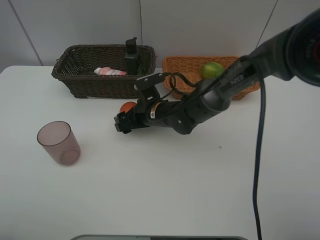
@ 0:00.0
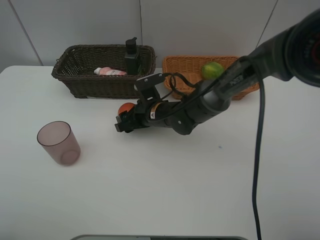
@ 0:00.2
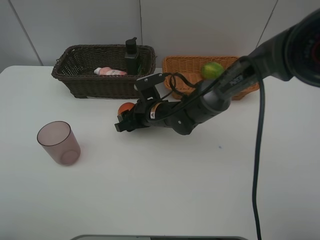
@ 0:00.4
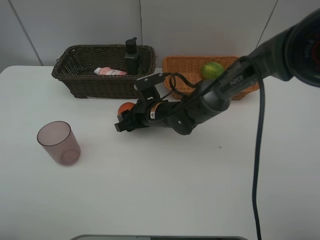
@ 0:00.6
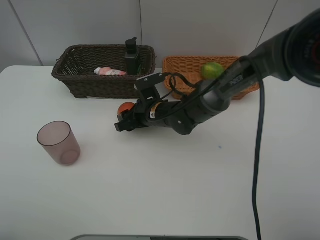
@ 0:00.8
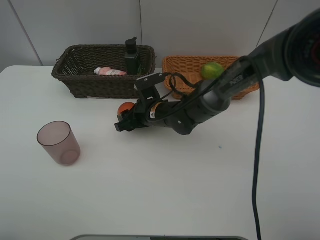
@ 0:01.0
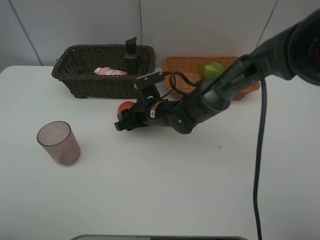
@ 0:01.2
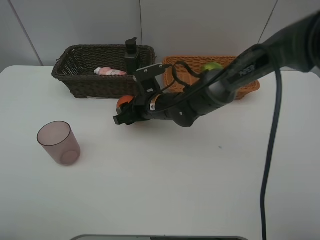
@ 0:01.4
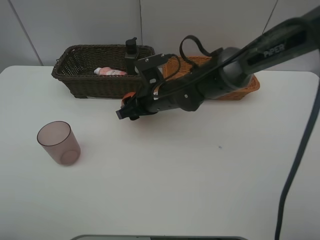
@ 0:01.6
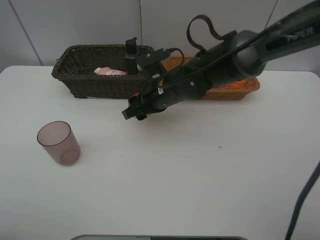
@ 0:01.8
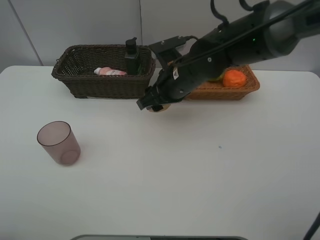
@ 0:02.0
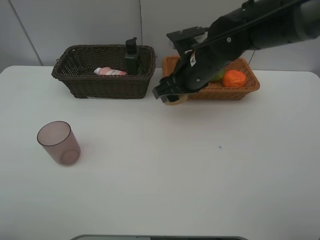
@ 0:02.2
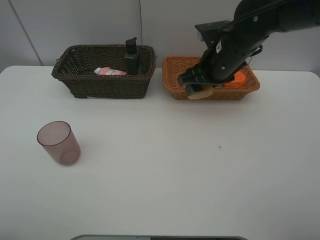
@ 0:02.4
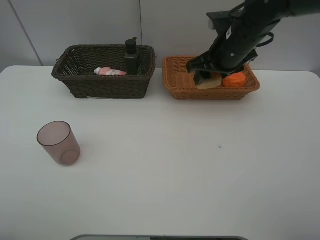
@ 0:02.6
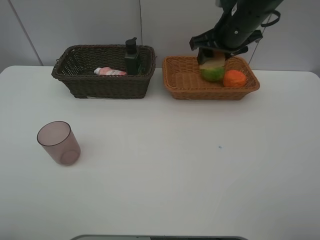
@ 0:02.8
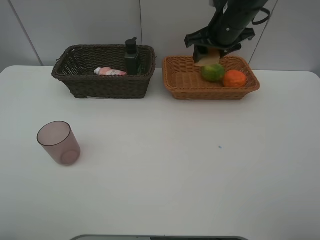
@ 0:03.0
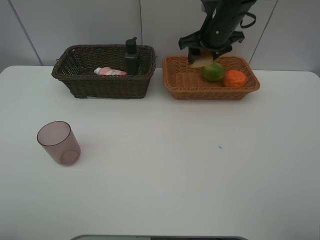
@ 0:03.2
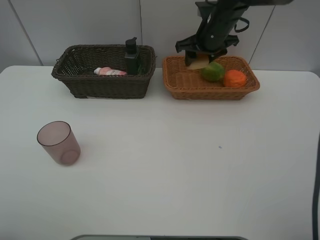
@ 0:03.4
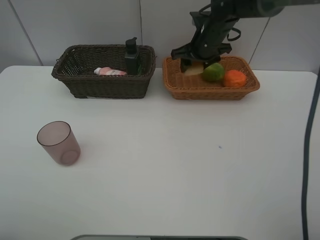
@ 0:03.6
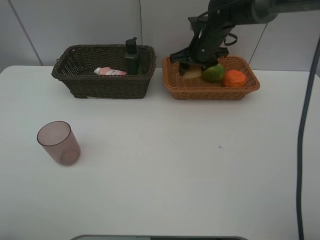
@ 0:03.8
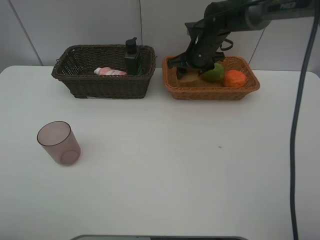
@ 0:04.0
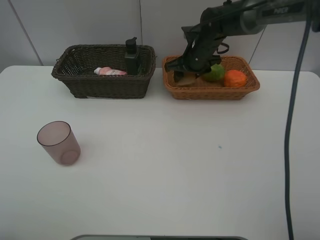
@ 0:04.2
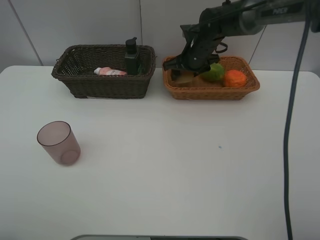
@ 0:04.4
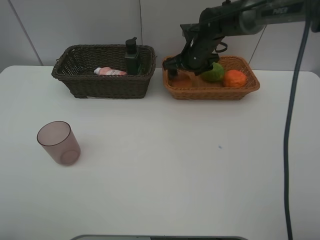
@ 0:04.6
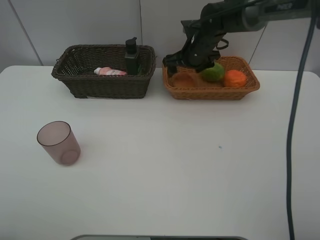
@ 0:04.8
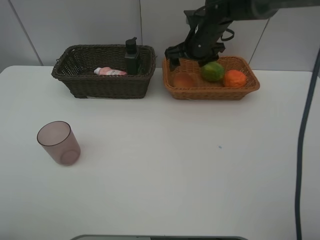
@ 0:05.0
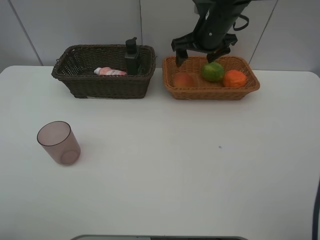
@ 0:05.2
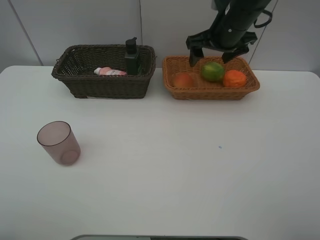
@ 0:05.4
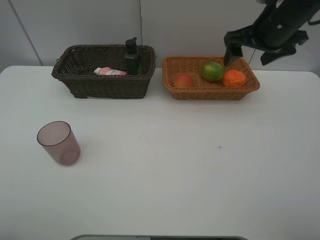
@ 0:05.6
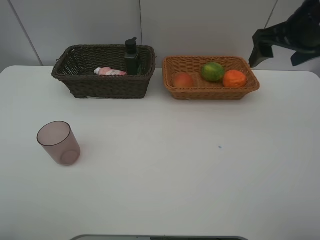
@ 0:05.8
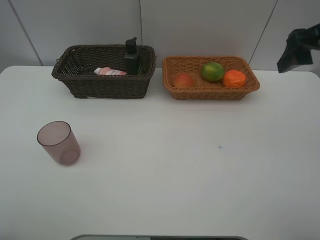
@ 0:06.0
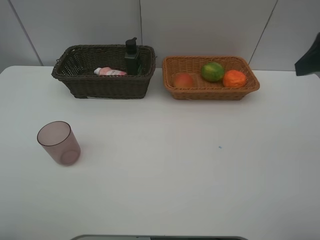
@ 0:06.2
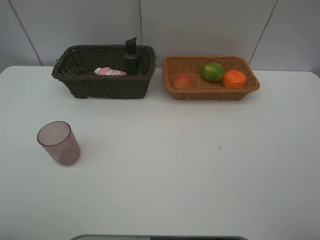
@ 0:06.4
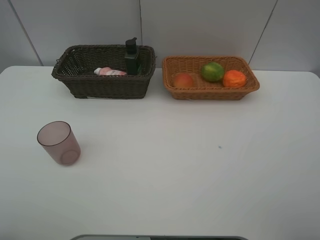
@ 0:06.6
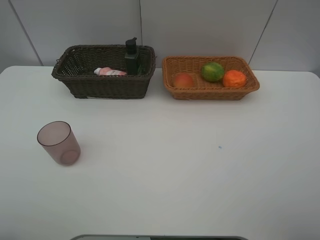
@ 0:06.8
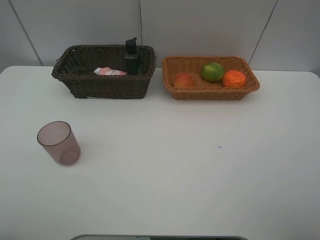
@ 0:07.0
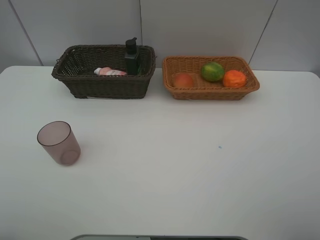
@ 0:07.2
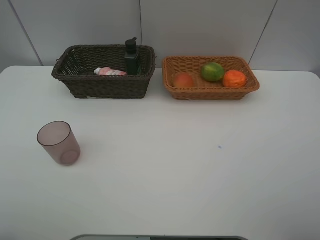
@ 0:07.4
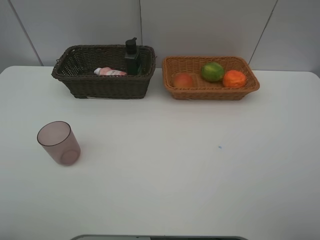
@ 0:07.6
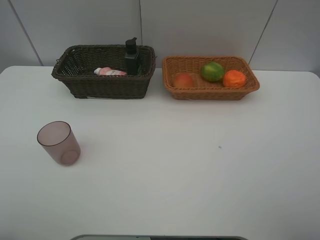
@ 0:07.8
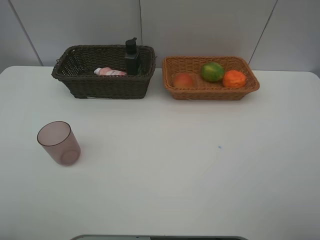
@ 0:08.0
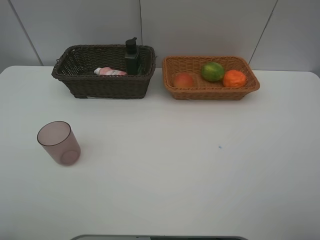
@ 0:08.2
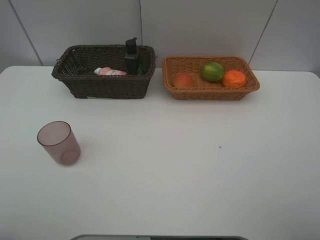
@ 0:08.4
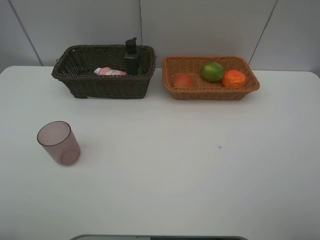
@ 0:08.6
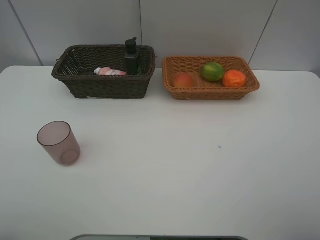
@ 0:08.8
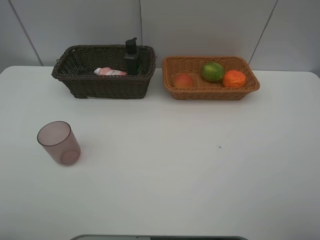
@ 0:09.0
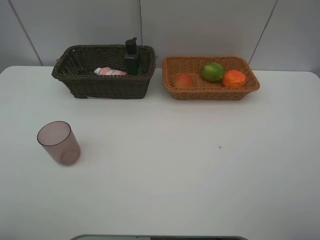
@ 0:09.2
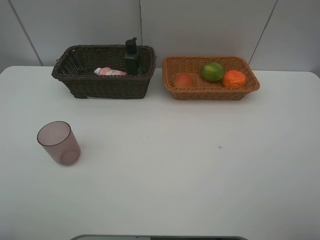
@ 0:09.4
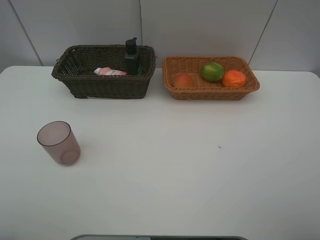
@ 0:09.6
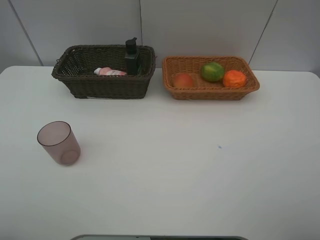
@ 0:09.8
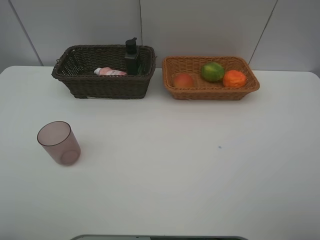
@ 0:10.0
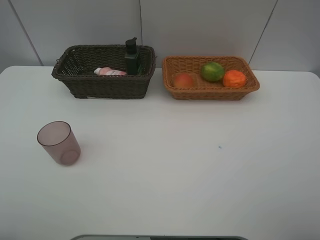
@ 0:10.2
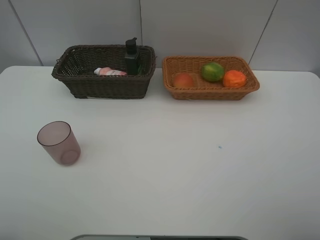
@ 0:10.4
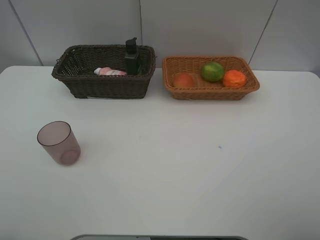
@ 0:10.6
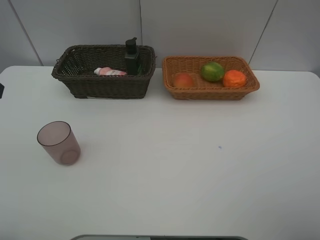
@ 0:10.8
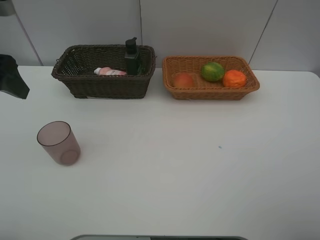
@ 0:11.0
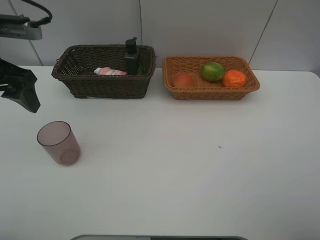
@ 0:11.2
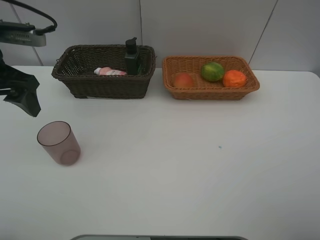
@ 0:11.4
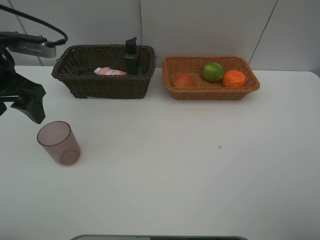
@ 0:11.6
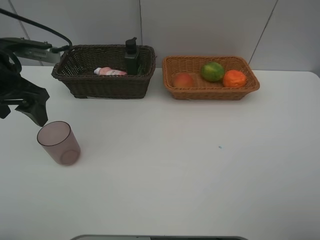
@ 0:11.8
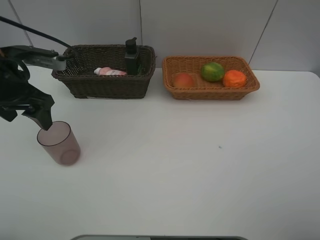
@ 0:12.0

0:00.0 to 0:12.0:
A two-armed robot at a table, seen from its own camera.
Task of the whole recording: place multiple objects separately in different baskets.
0:00.0 to 0:01.6: The right gripper travels upward by roughly 5 cm.
0:01.6 to 0:03.0: The right gripper heads to the right, upward and forward, covering approximately 20 cm.
0:03.0 to 0:04.4: The right gripper goes about 10 cm downward and forward.
0:04.4 to 0:06.0: The right gripper moves backward, upward and to the right, about 35 cm.
0:06.0 to 0:07.6: The right gripper heads backward, covering some 20 cm.
0:10.4 to 0:12.0: The left gripper moves forward and downward, roughly 25 cm.

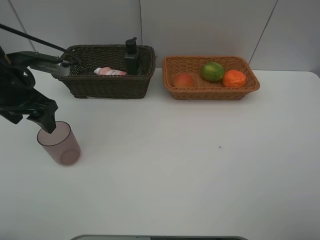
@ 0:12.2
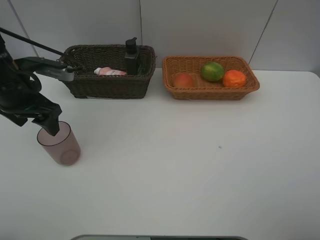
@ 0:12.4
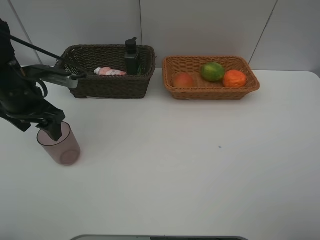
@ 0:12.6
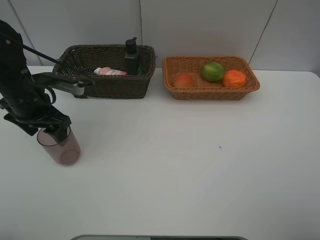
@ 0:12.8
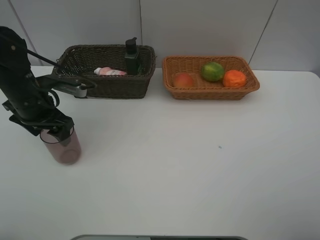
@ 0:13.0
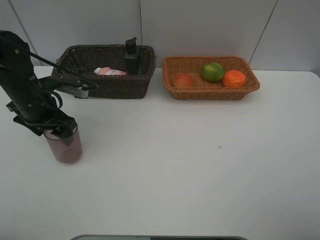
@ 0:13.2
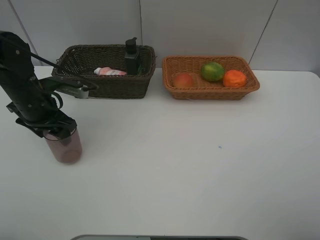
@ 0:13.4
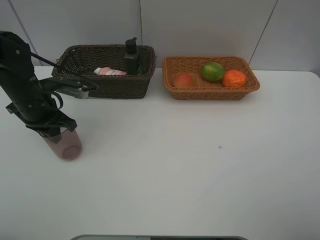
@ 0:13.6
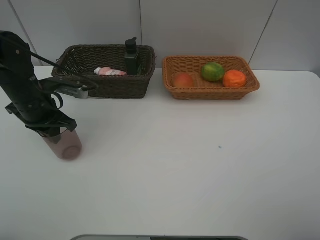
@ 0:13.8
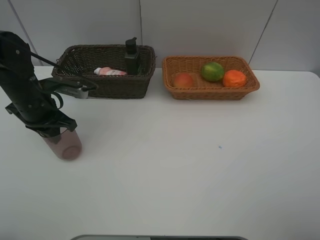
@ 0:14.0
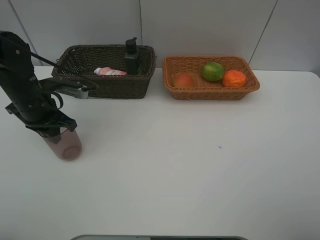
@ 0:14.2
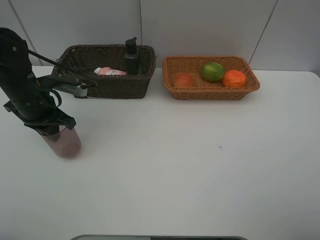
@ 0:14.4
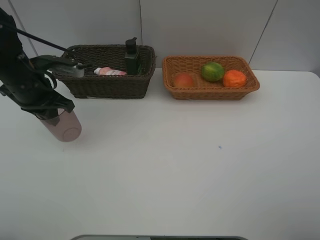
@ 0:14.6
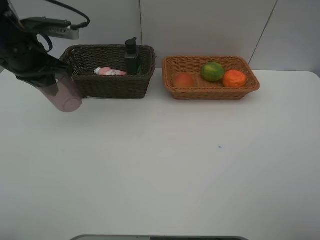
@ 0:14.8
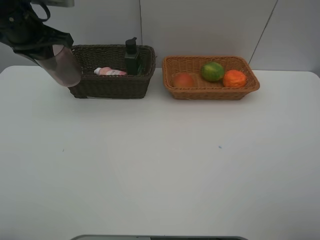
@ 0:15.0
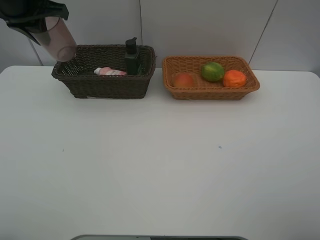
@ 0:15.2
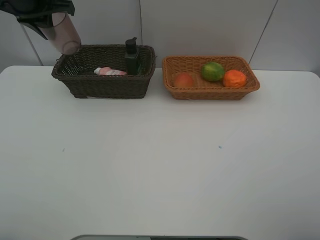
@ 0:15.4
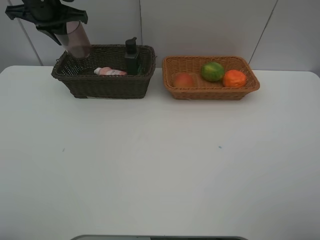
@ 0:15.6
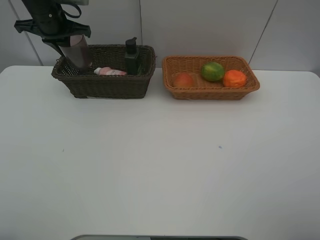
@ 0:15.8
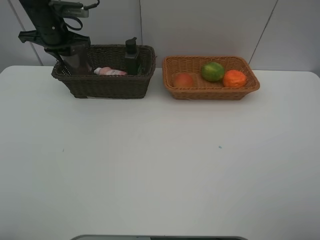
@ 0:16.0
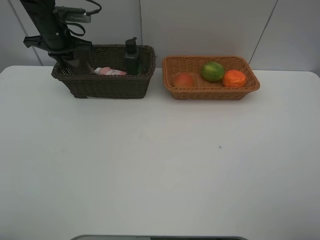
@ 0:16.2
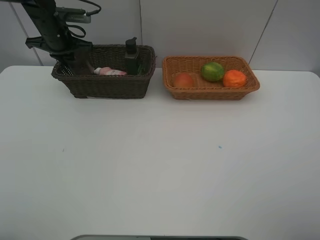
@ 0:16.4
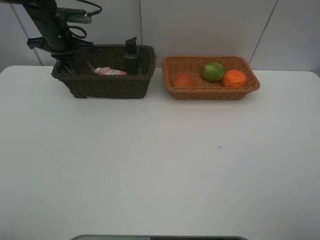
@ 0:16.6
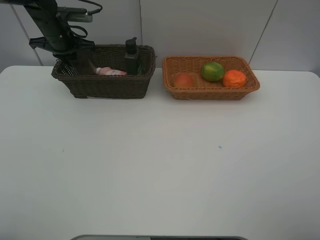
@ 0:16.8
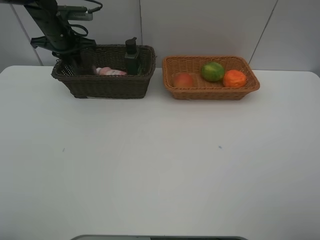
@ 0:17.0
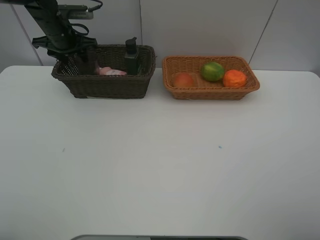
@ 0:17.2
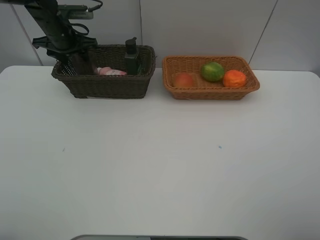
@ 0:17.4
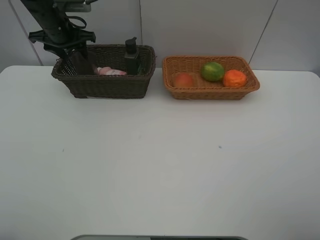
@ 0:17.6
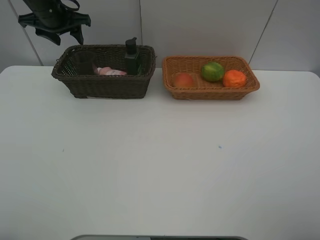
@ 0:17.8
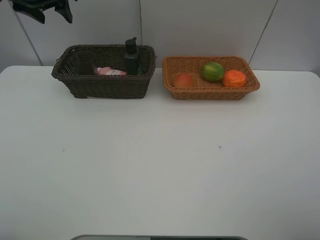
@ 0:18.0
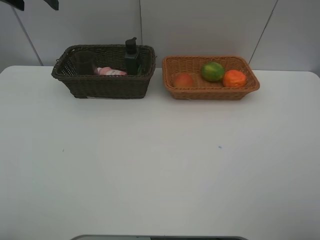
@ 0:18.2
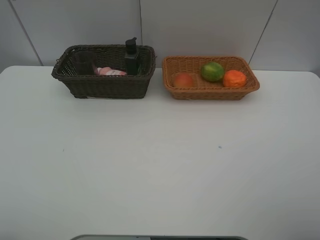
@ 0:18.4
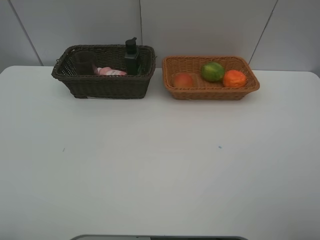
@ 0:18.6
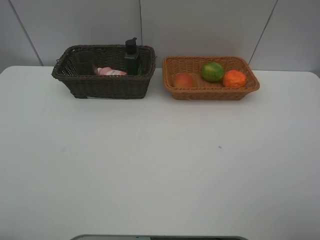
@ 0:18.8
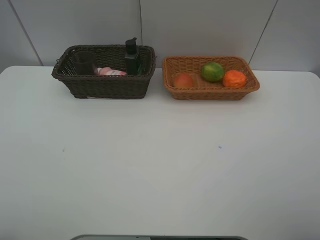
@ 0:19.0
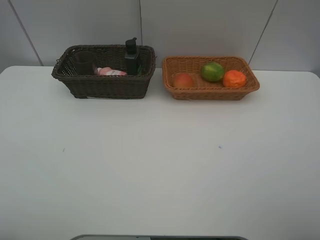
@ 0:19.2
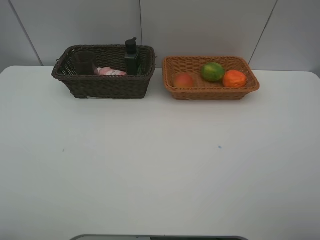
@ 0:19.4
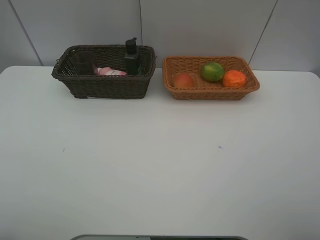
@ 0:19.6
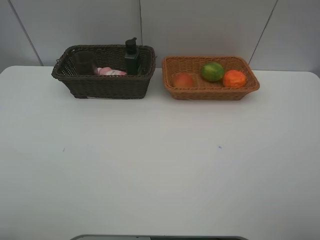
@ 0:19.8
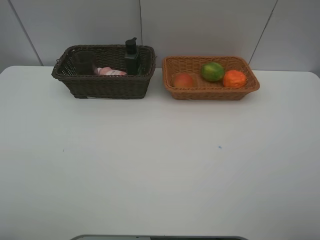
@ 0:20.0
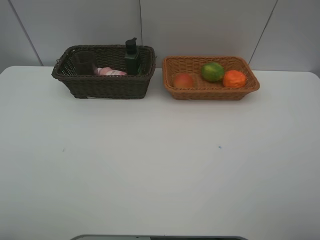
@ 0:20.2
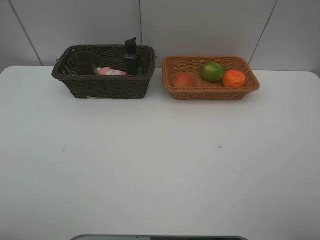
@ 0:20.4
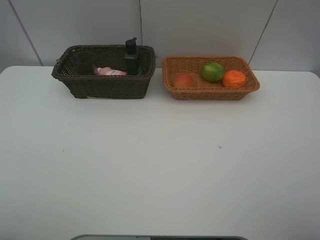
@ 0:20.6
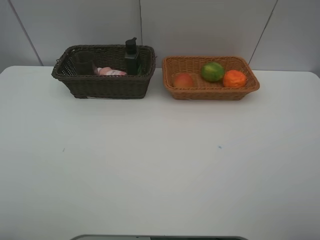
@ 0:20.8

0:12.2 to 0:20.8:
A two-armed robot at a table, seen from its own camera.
Task of the whole recording: place multiple objects separately in different baskets.
0:12.2 to 0:13.6: The left gripper is displaced downward by approximately 5 cm, and closes.
0:13.6 to 0:15.0: The left gripper moves upward, approximately 15 cm.
0:15.0 to 0:16.6: The left gripper moves forward and downward, some 15 cm.
0:16.6 to 0:18.0: The left gripper is displaced upward by about 15 cm, and opens.
0:18.0 to 0:19.4: The left gripper is displaced backward by approximately 40 cm.
